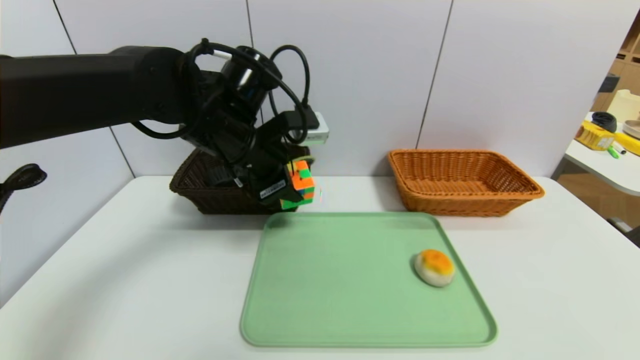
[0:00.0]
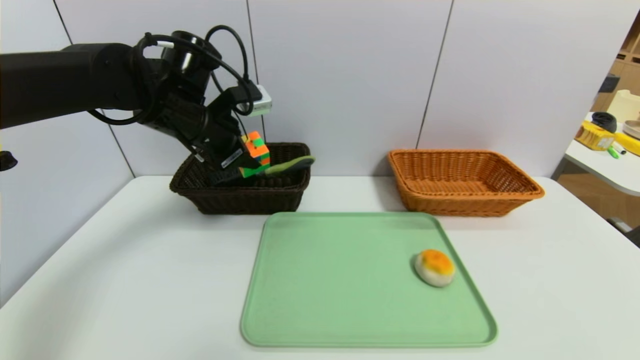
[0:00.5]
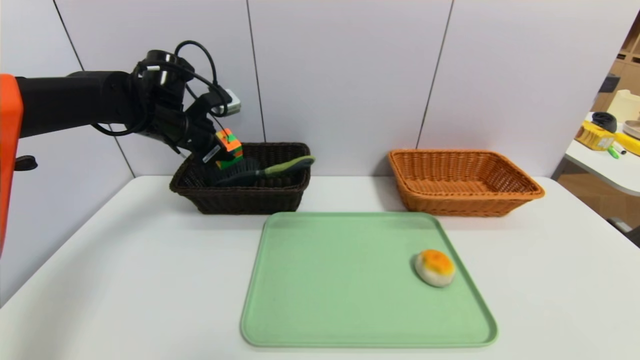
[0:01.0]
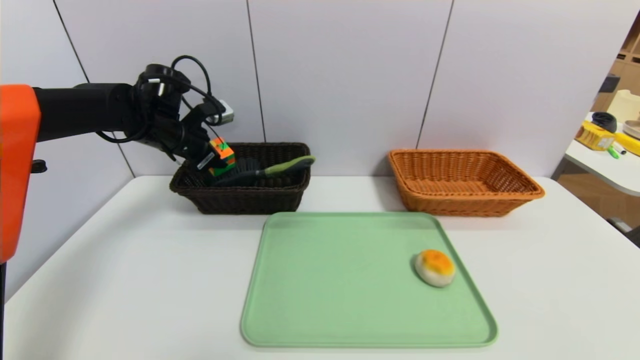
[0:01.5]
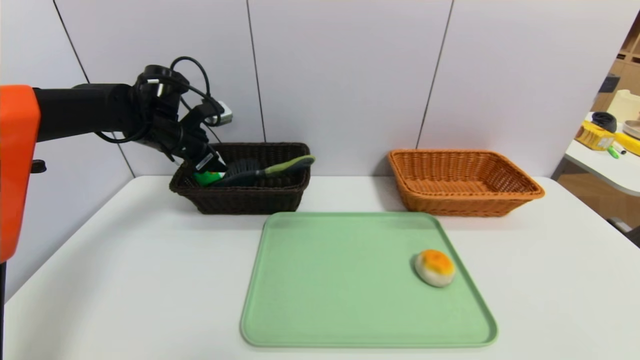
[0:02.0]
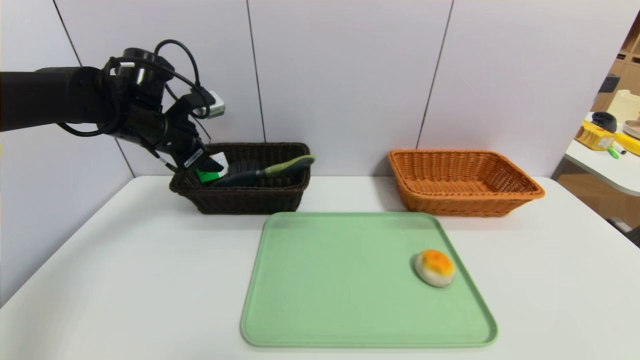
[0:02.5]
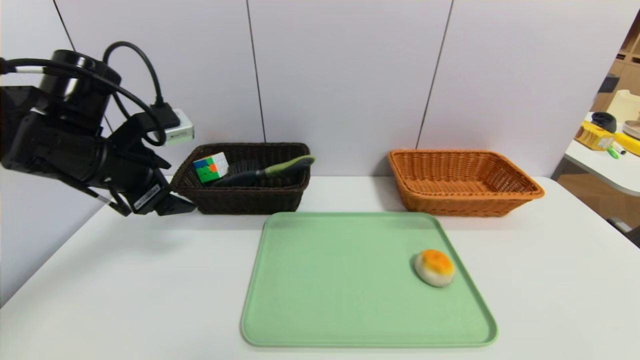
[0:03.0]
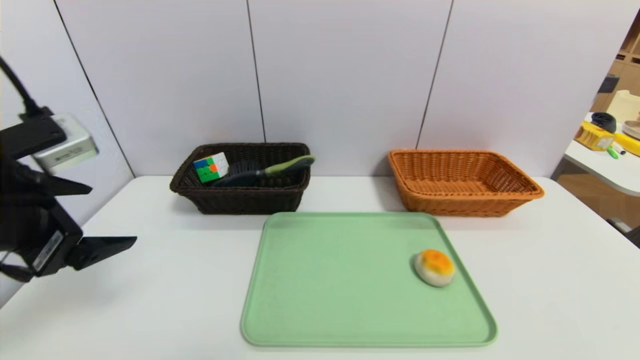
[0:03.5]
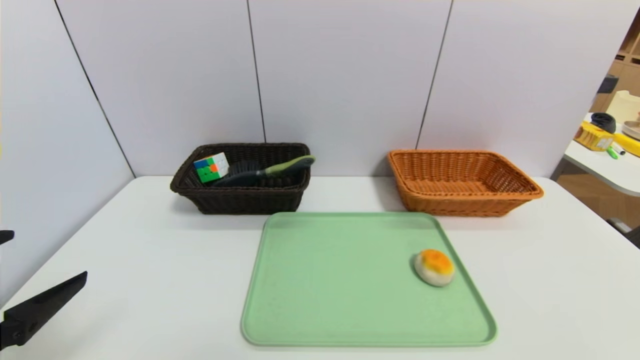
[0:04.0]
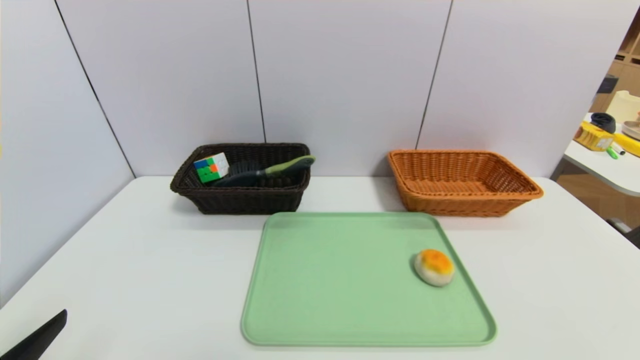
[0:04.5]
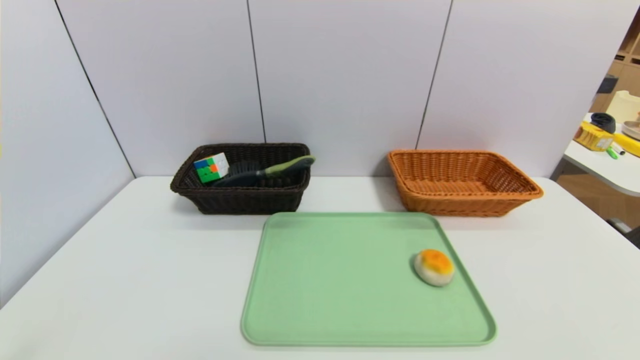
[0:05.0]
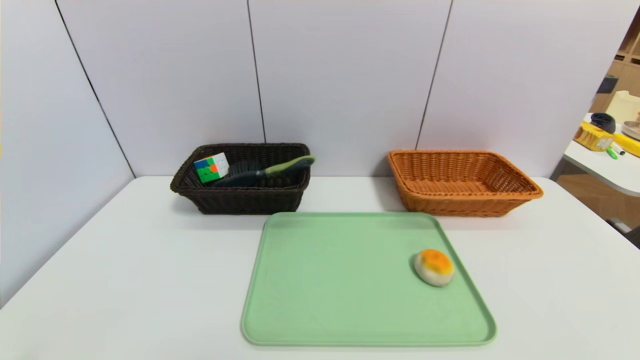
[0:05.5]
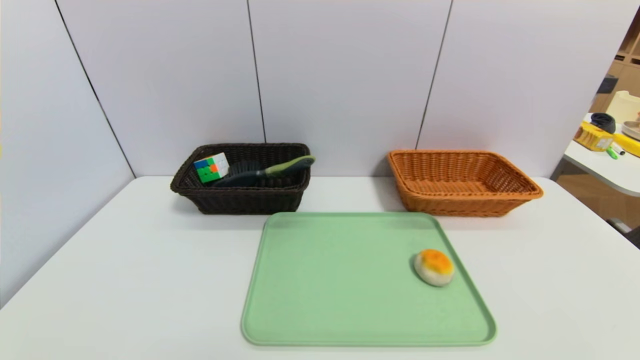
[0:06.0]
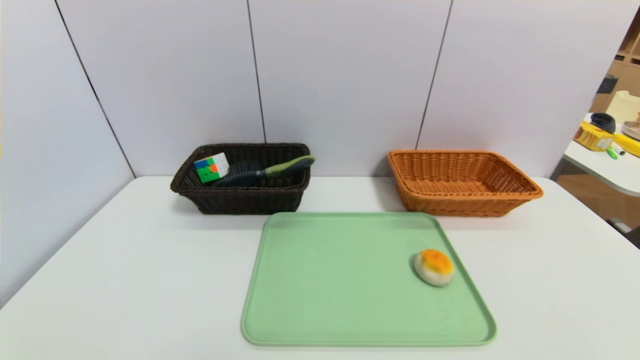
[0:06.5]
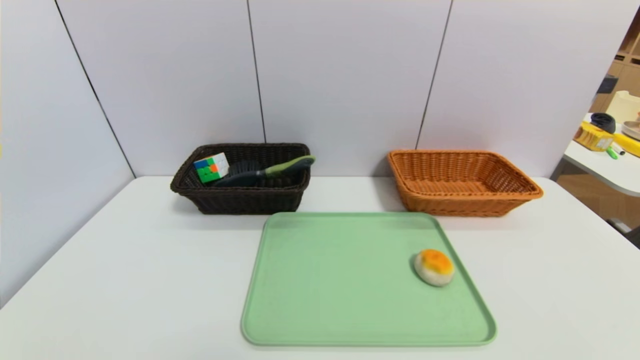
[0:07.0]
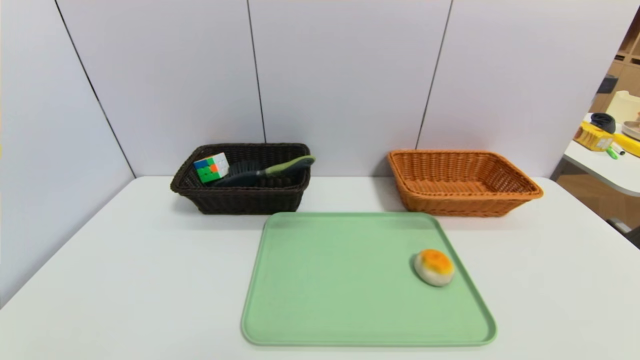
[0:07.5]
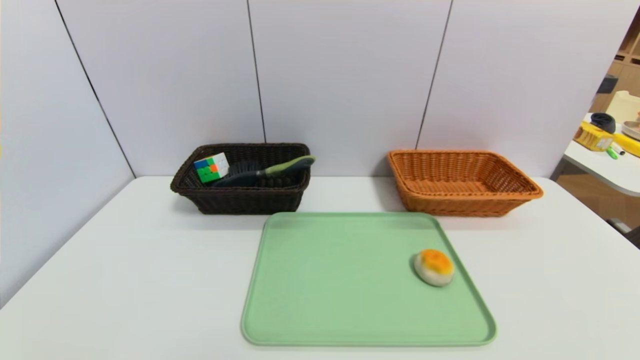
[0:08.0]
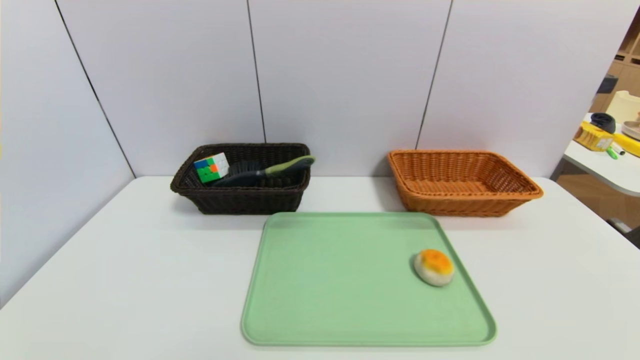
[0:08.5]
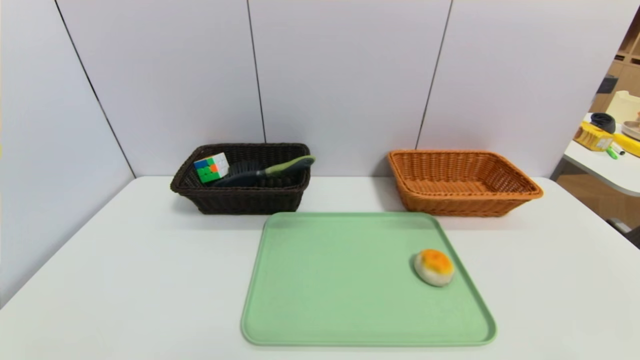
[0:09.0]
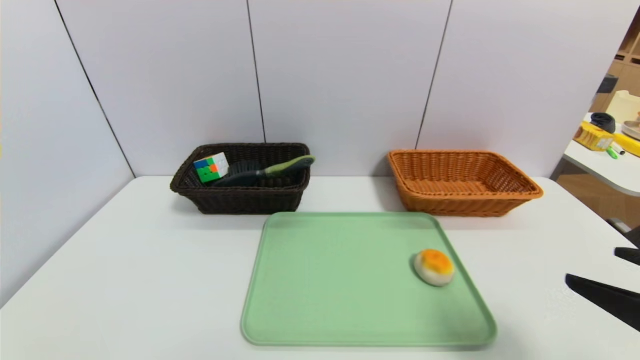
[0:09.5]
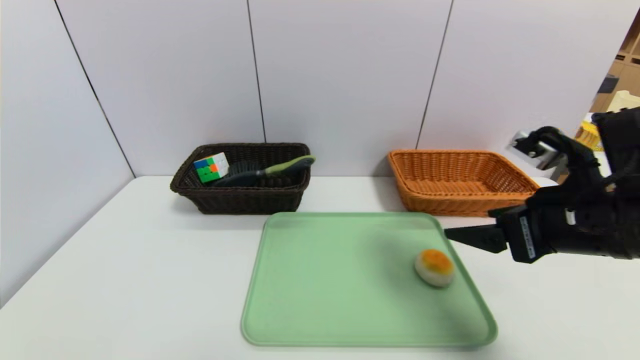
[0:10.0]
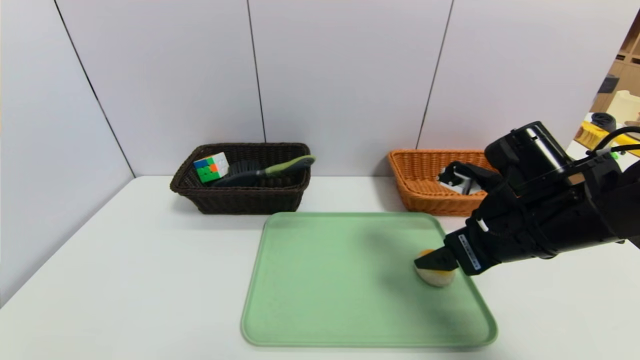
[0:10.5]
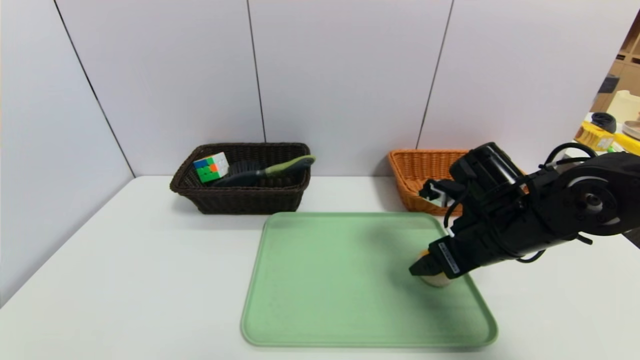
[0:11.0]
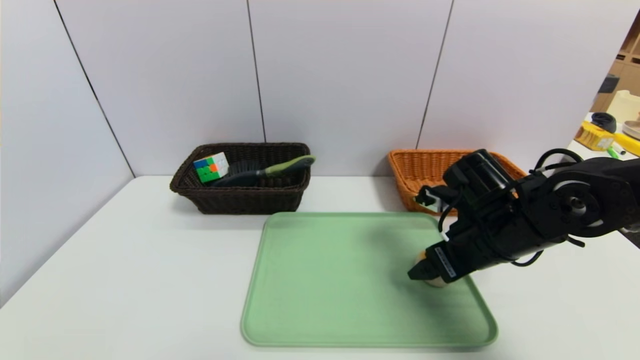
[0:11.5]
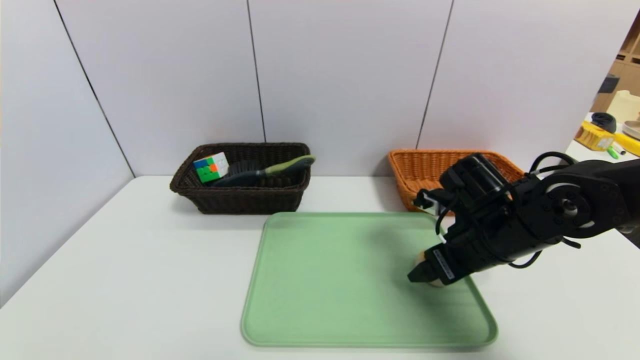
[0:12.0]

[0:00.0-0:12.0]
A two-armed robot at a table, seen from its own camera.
Task of the whole recording: place the food in the right basket with the right gripper, and place the non food items in the left basket with the left gripper.
Step, 0:00.0 to 0:02.0: Grasp the rubiks cube and put it in the left basket.
0:00.0 to 0:02.0: The left gripper shifts roughly 20 cm to the left and forward.
0:02.0 to 0:04.0: The left gripper moves backward, roughly 35 cm.
0:04.0 to 0:06.0: The left gripper travels downward and backward by roughly 15 cm.
0:08.0 to 0:10.0: The right gripper goes roughly 30 cm forward and upward.
0:10.0 to 0:12.0: The right gripper moves downward and forward, approximately 10 cm.

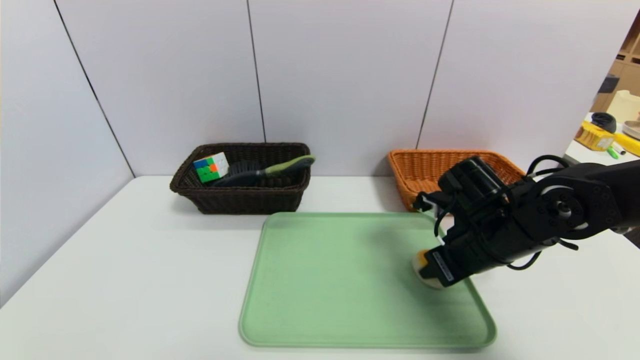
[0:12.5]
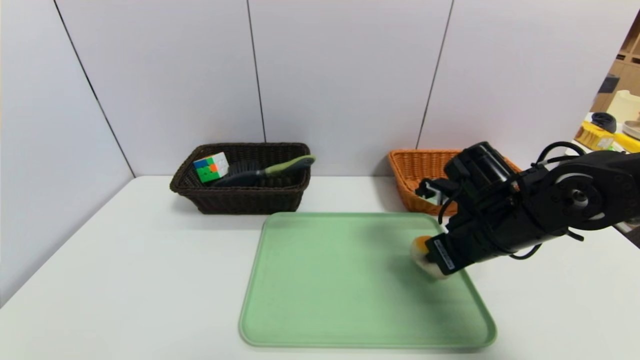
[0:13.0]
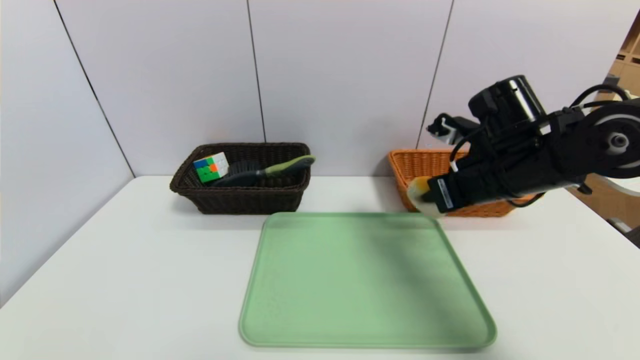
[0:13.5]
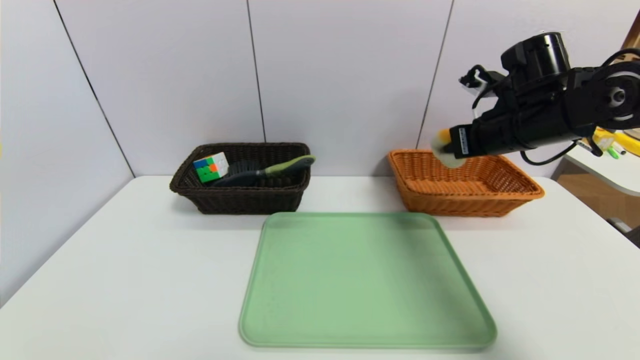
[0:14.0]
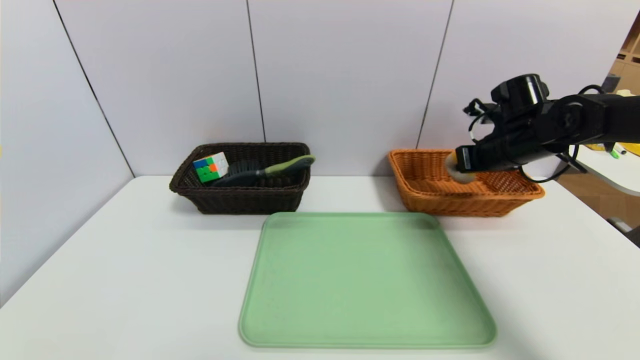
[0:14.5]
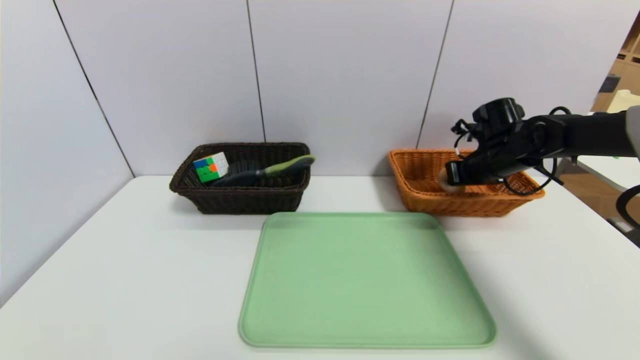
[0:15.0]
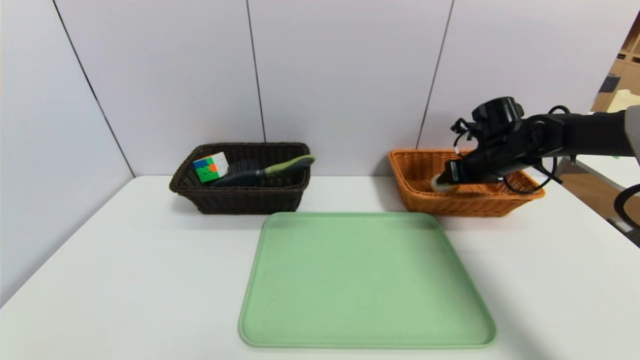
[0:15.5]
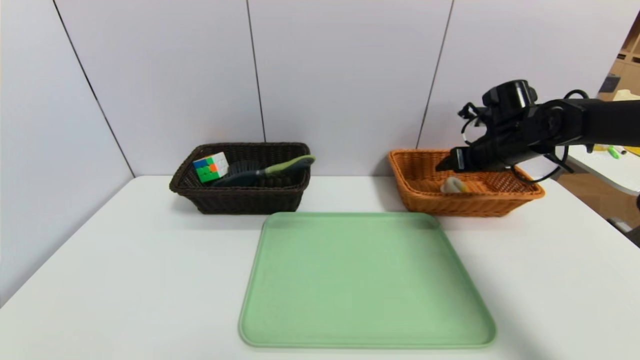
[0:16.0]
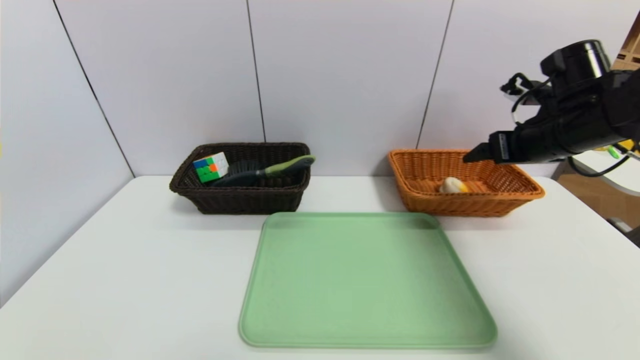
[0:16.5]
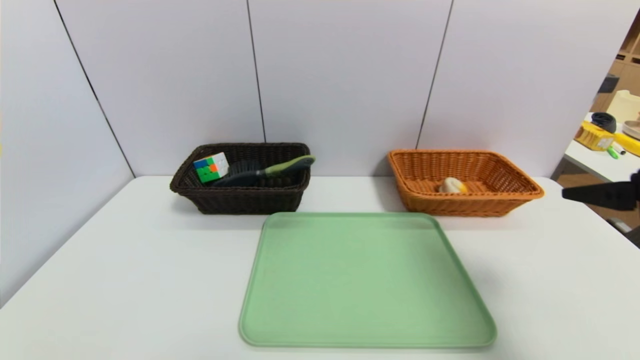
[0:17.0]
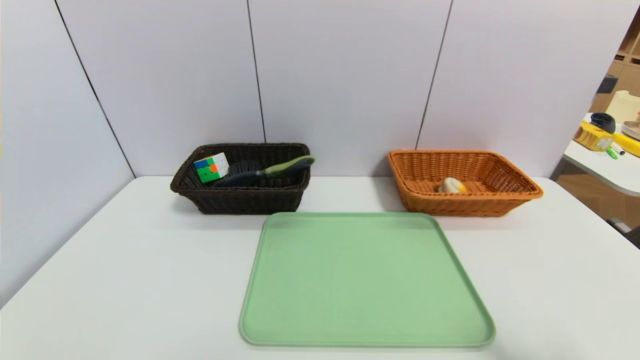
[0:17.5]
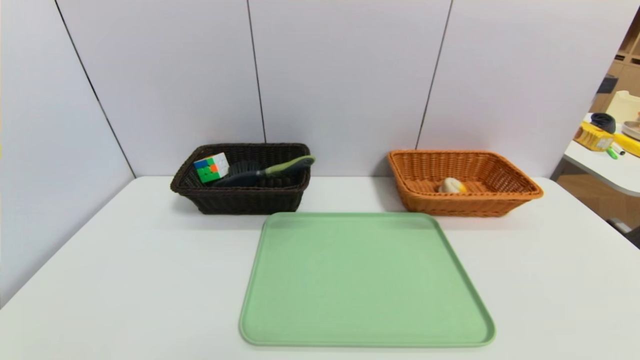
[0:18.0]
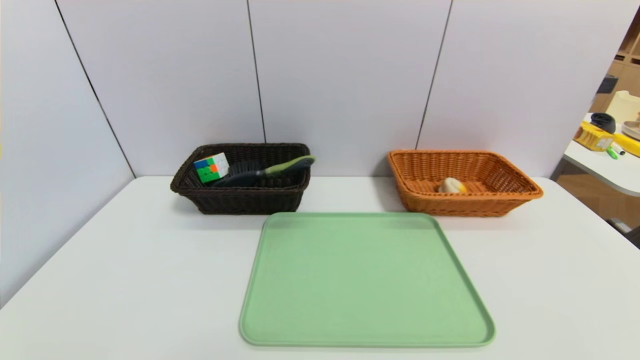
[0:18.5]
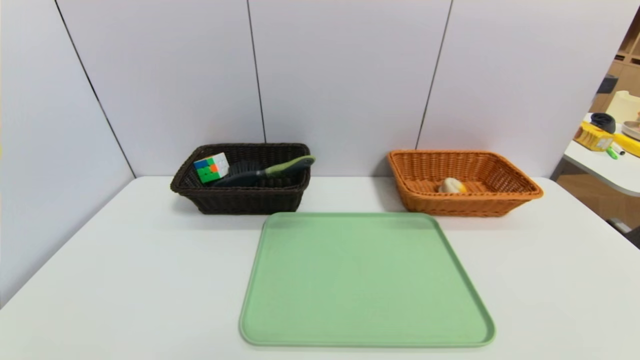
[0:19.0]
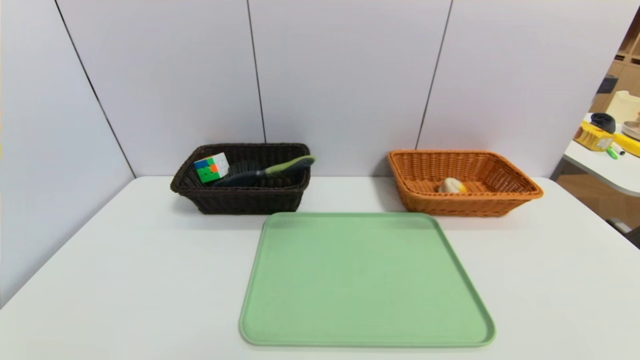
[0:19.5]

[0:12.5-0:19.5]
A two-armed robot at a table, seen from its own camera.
Task of the whole recording: place the food in the right basket with the right gripper, and place the non food items in the left basket with the left gripper.
Step, 0:12.5 to 0:15.5: Grasp the egg yolk pastry and put it in the right basket.
0:12.5 to 0:14.5: The right gripper moves forward, to the right and upward, approximately 15 cm.
0:14.5 to 0:16.0: The right gripper opens.
0:16.0 to 0:17.5: The right gripper travels backward by about 40 cm.
